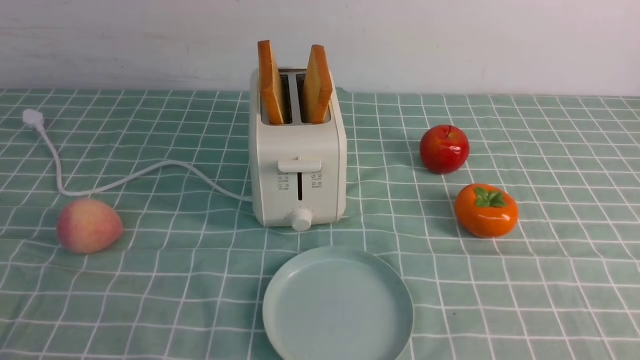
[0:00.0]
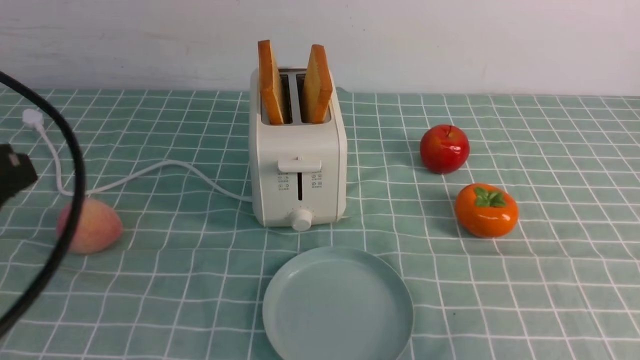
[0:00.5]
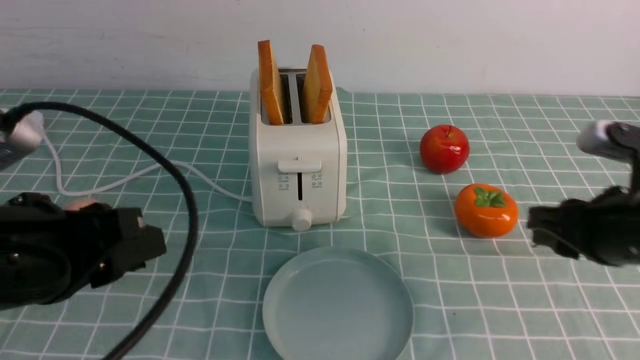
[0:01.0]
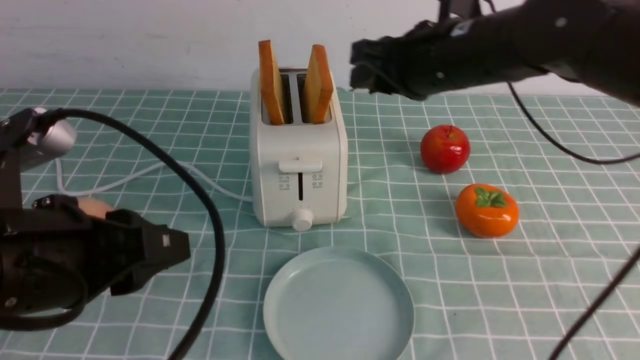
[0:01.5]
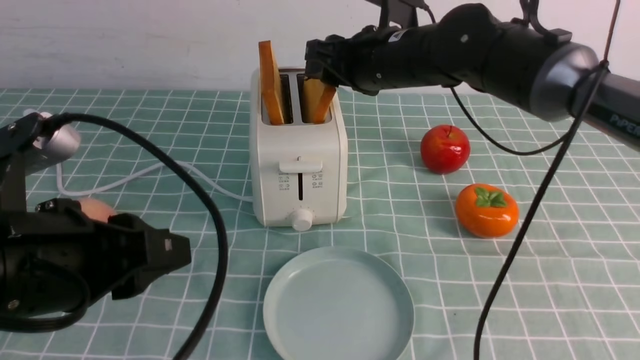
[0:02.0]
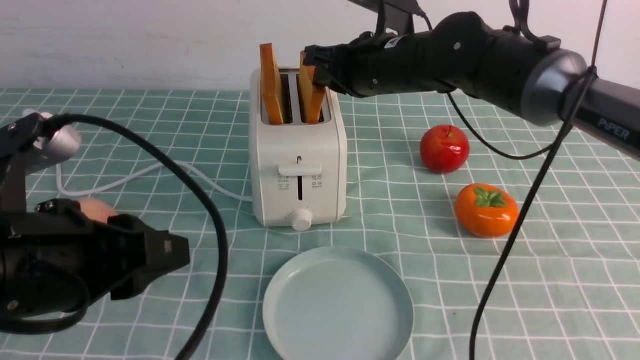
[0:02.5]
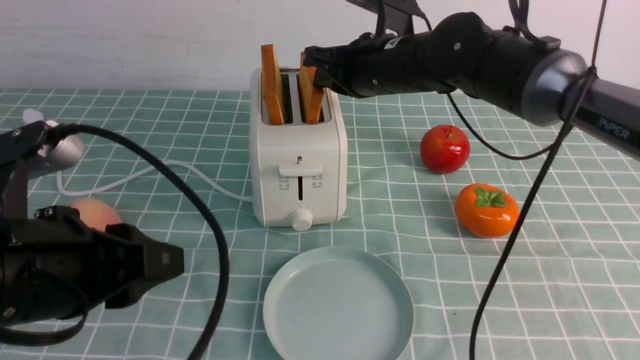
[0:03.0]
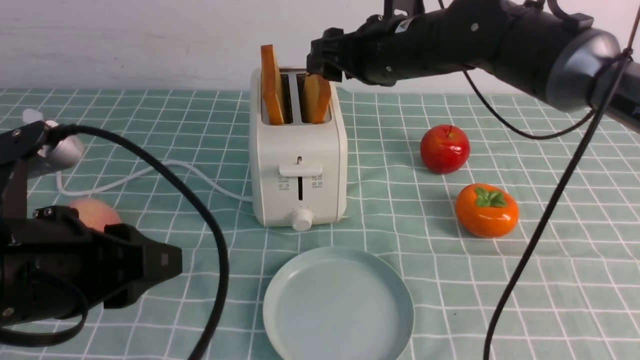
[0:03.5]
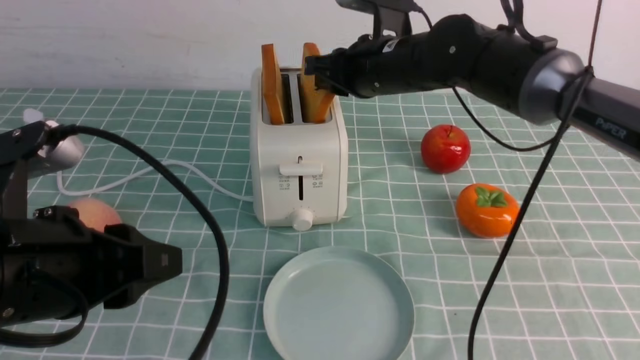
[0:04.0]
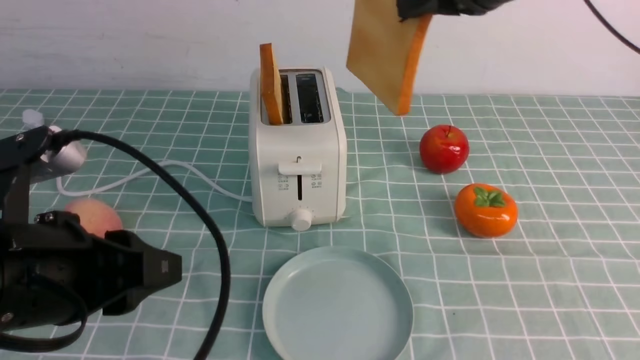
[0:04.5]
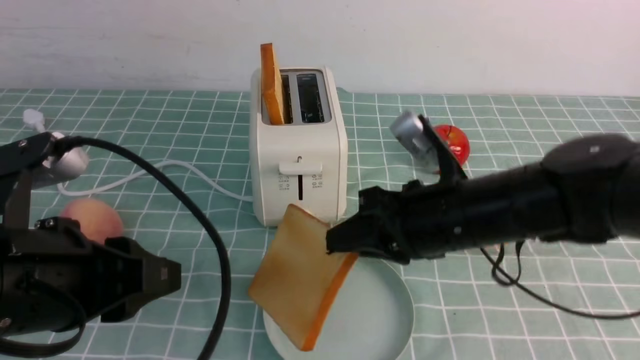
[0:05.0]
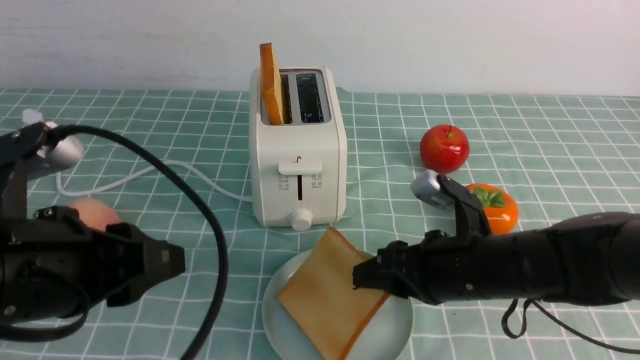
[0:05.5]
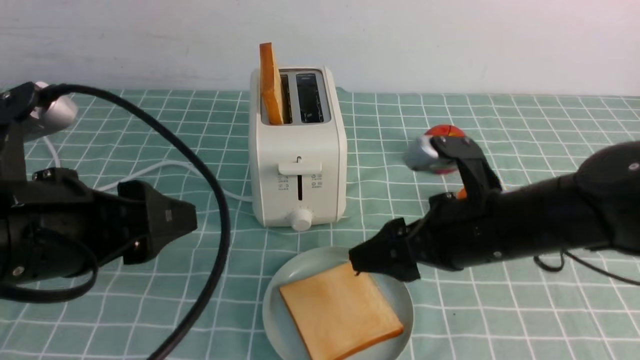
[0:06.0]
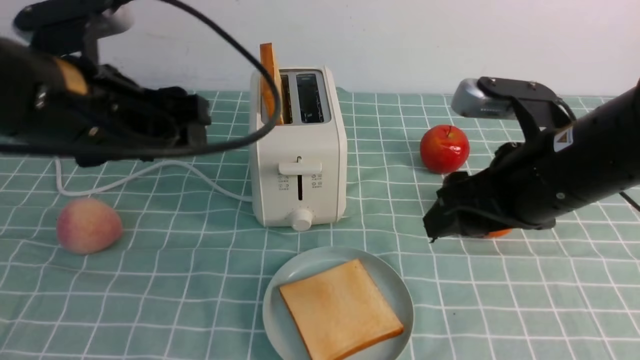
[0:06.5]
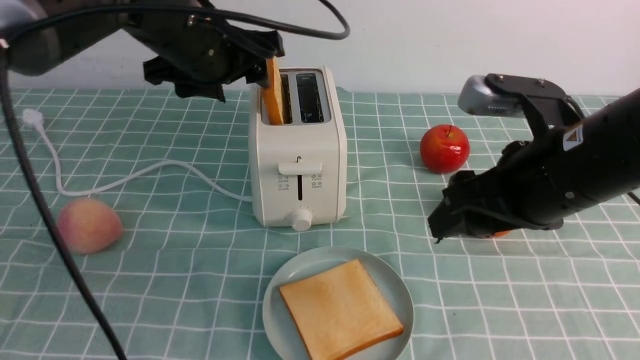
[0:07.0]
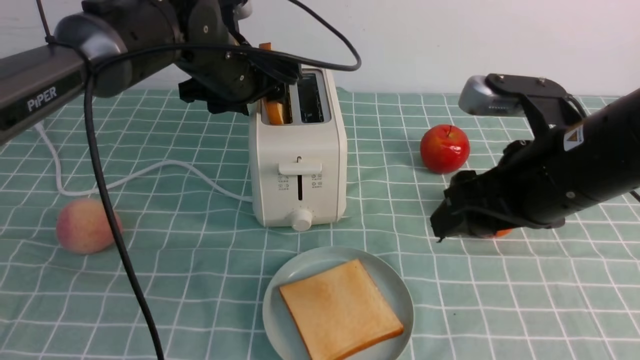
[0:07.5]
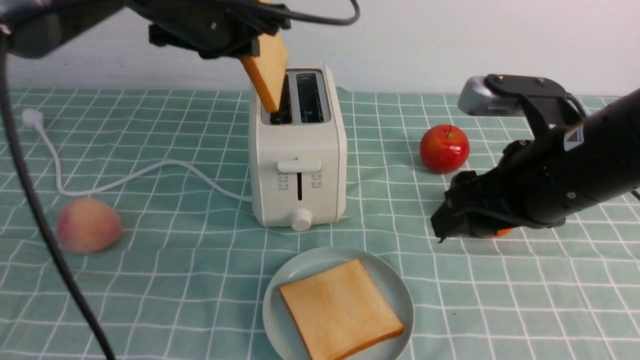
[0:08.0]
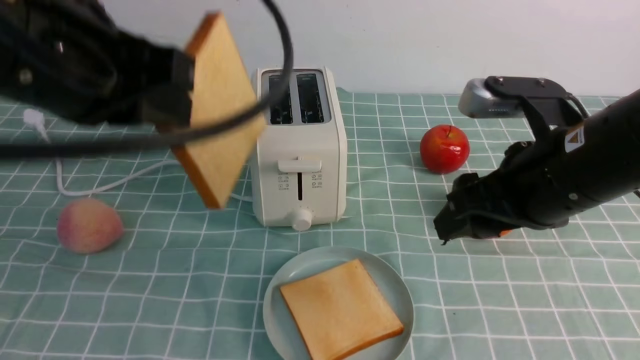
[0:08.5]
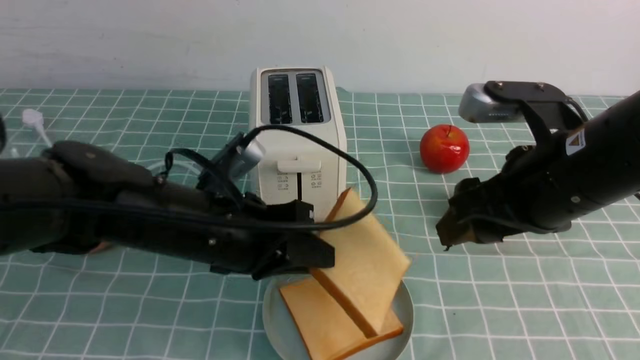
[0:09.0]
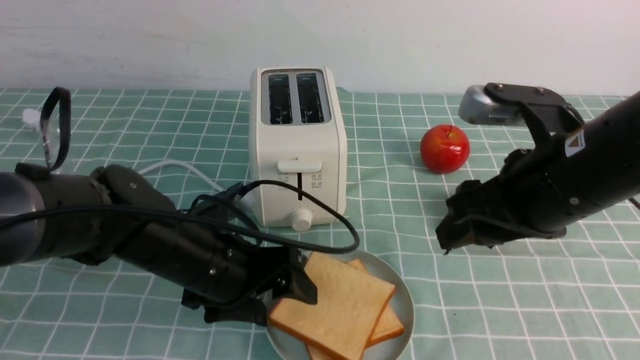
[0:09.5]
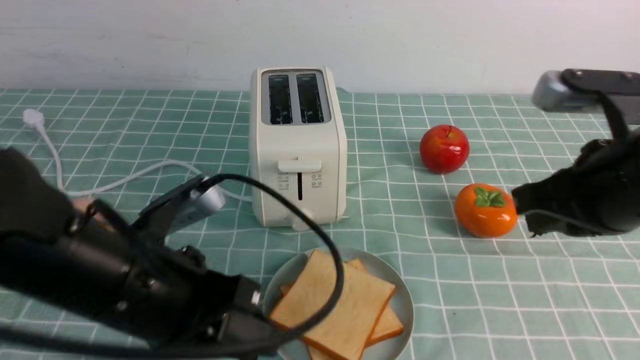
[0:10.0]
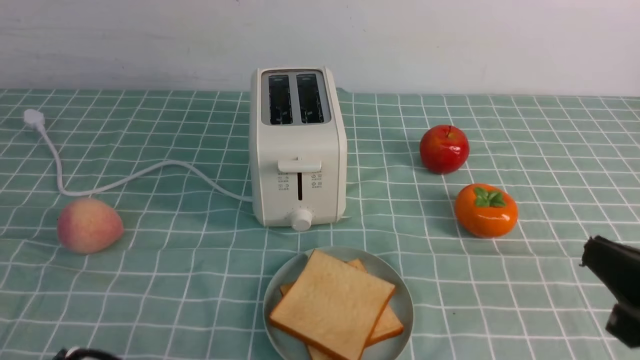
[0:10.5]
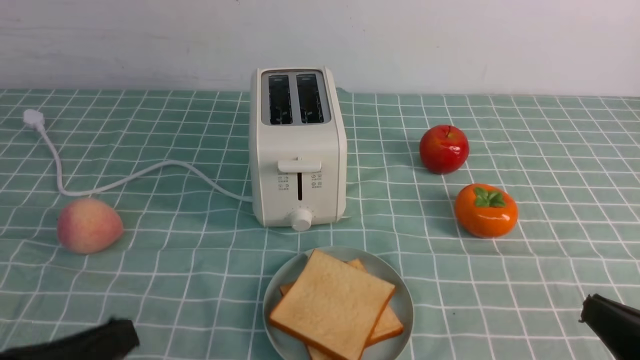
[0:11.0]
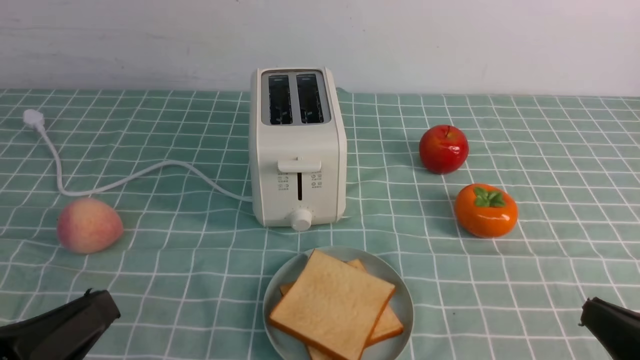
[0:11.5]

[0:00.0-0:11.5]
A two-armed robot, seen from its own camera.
Task of the whole recording: take toasted bread from bread machine on blue coffee table place on plate.
Step, 0:00.0 to 0:04.0: use the right arm to take out a slice of bread.
Step, 0:04.5 to 0:06.0: use the right arm to put a slice of bread into the plate.
Step, 0:06.5 to 0:08.0: use the left arm to take out a slice of bread.
Step, 0:08.5 to 0:10.0: use the left arm to put a slice of bread into the empty plate.
0:00.0 to 0:02.0: The left gripper travels forward and to the right by roughly 15 cm, while the right gripper shifts approximately 40 cm forward and to the left.
0:02.0 to 0:04.0: The right gripper closes, then opens again.
0:04.0 to 0:06.0: The left gripper opens. Meanwhile the right gripper goes up and down, approximately 20 cm each way, reversing 2 times, and opens.
0:06.0 to 0:07.5: The right gripper moves upward, about 5 cm. The left gripper moves forward, approximately 25 cm.
0:07.5 to 0:09.5: The left gripper shifts roughly 20 cm backward and downward, and closes, then reopens.
0:09.5 to 0:11.5: The left gripper shifts roughly 25 cm backward and to the left, and closes its fingers; the right gripper moves backward, downward and to the right, some 20 cm, and closes up.

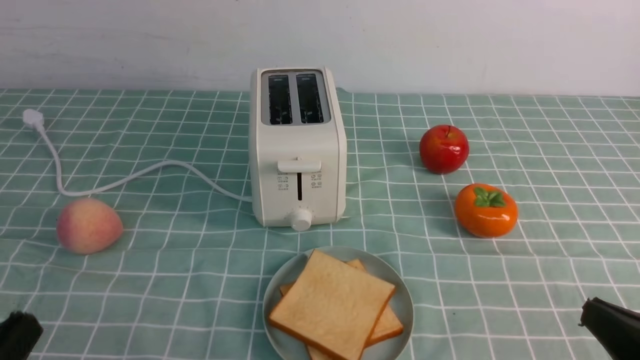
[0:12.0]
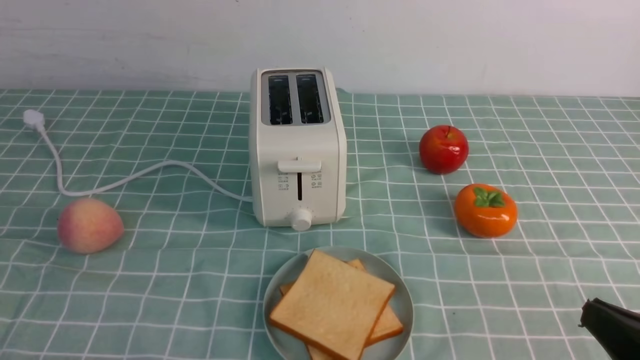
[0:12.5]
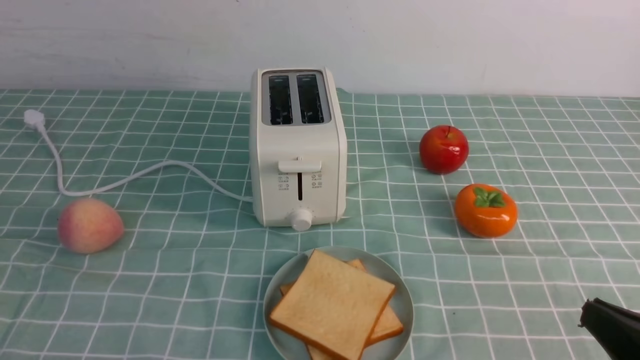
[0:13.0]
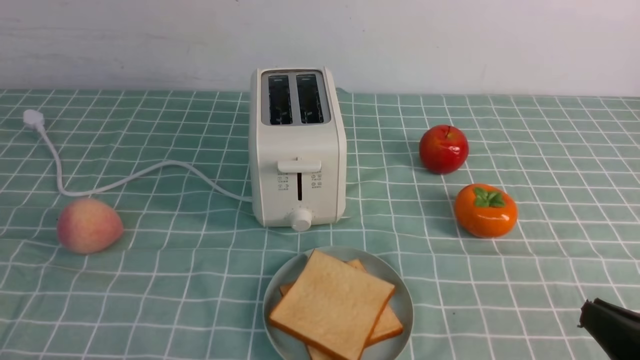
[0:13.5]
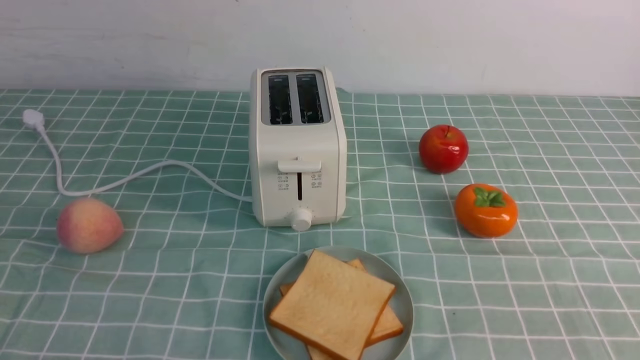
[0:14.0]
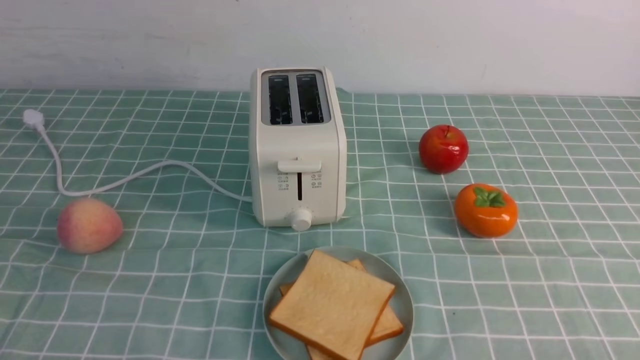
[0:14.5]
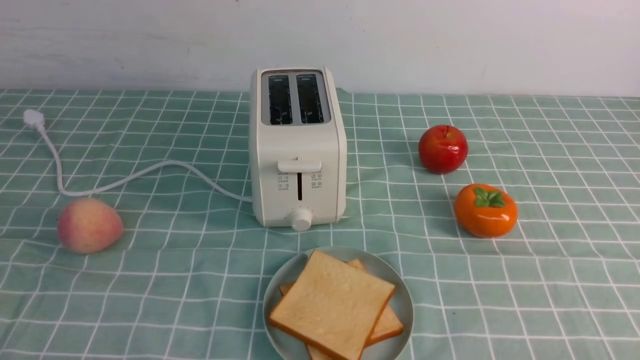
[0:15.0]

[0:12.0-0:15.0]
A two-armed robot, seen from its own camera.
Task of the whole recording: take toasted bread from bread machine on blue coffee table place on plate.
0:12.0 to 0:13.5: The left gripper shifts roughly 5 cm downward.
0:13.5 to 0:15.0: The right gripper moves downward, approximately 5 cm.
